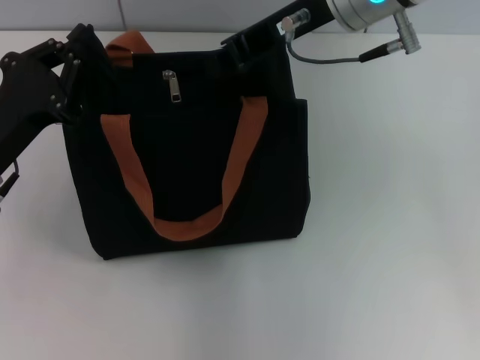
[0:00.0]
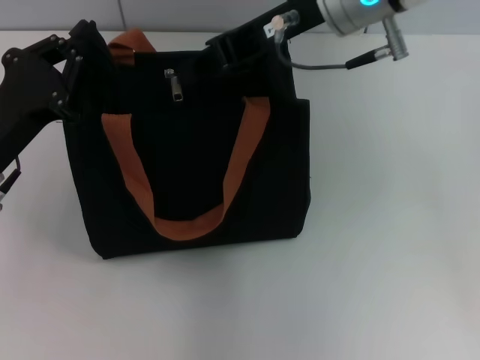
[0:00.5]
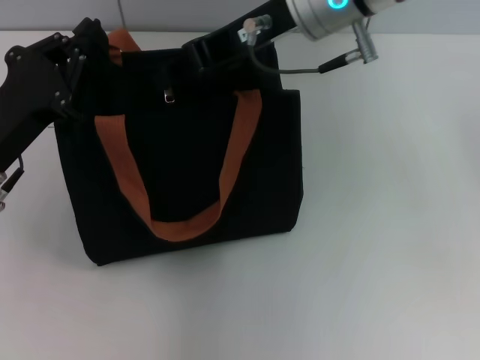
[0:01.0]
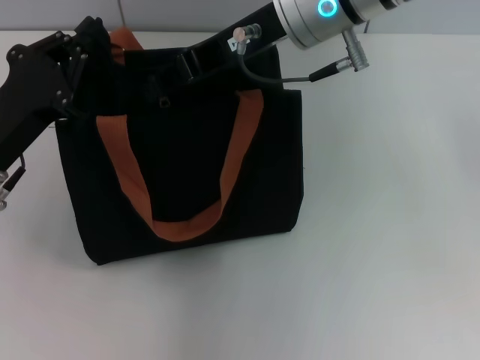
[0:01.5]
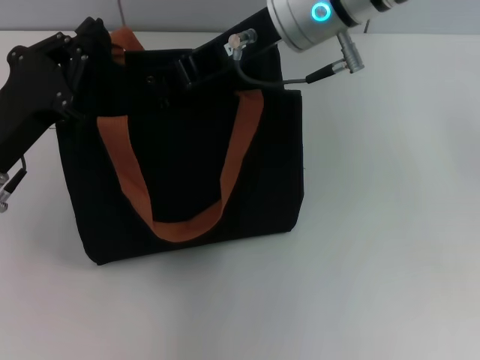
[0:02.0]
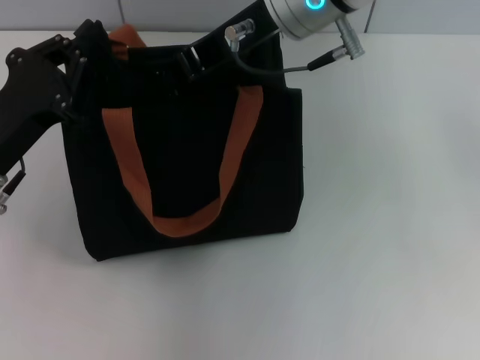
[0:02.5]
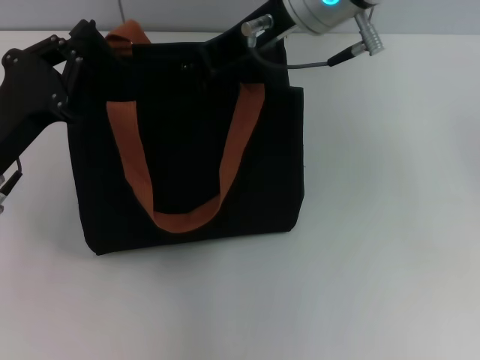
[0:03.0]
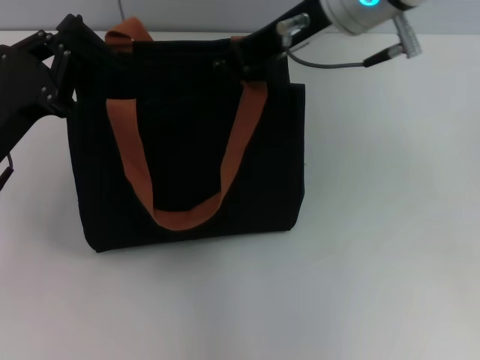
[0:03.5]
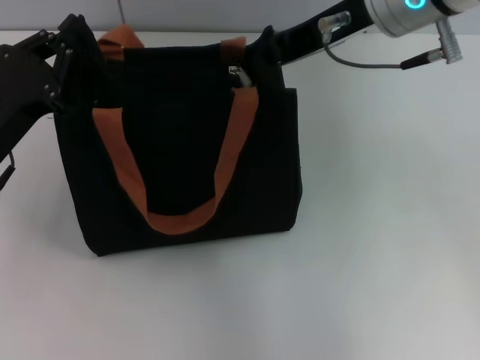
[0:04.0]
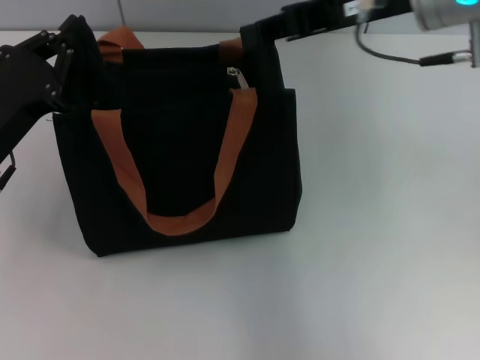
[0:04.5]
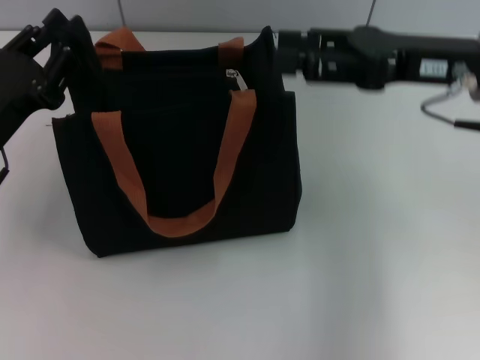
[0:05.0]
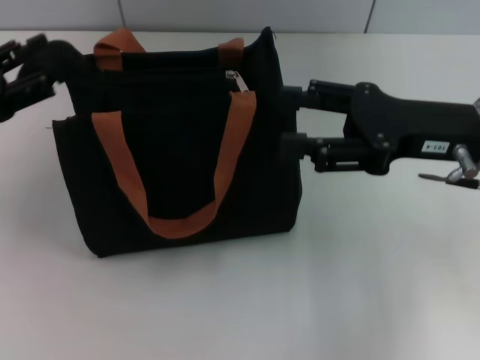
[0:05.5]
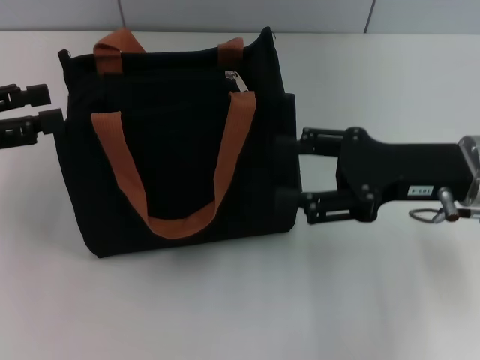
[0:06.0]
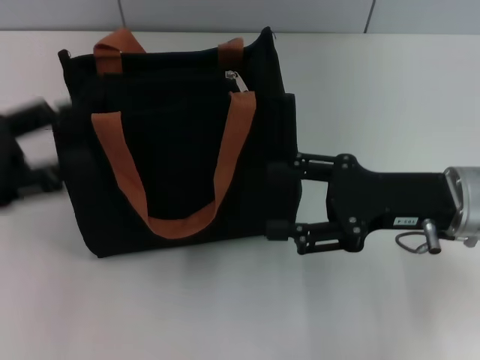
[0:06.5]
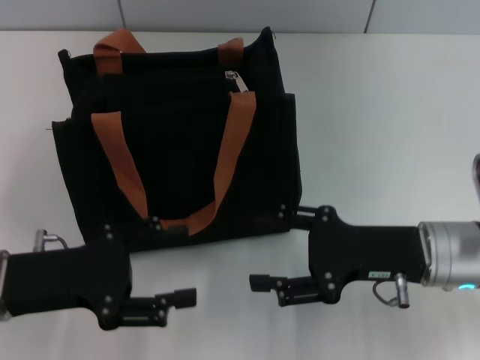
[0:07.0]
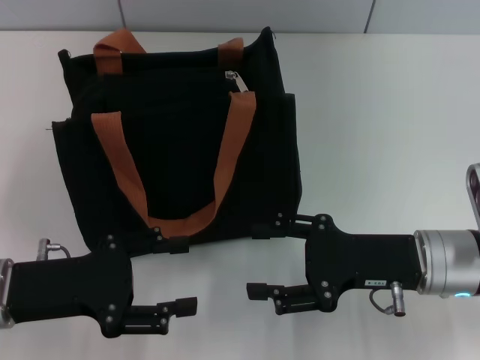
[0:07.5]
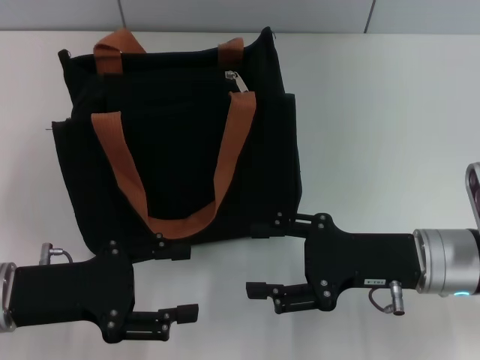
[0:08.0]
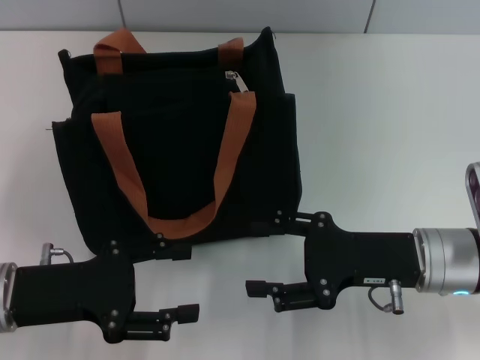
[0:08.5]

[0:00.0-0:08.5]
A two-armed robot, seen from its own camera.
Step, 0:00.0 to 0:04.0: Pull up the zipper with your right hand.
Step, 0:05.0 to 0:06.0: Grab the zipper with your left hand.
0:00.0 to 0:02.0: The grippers make only small movements.
0:02.0 to 0:04.0: The right gripper is displaced to the right by some 5 cm.
0:04.0 to 0:06.5: The right gripper moves downward, to the right and backward, approximately 20 cm, and opens its fingers, while the left gripper shifts roughly 10 cm to the left and upward, and opens its fingers.
0:06.5 to 0:08.5: The left gripper heads downward and to the right, covering about 10 cm; the right gripper ends up about 5 cm from where it was.

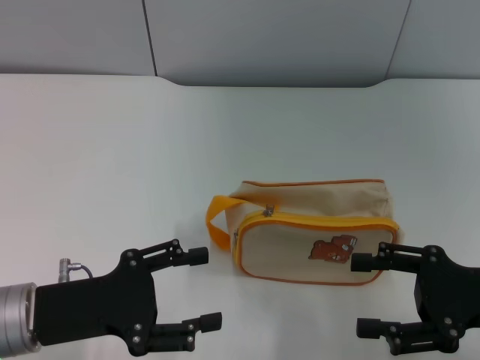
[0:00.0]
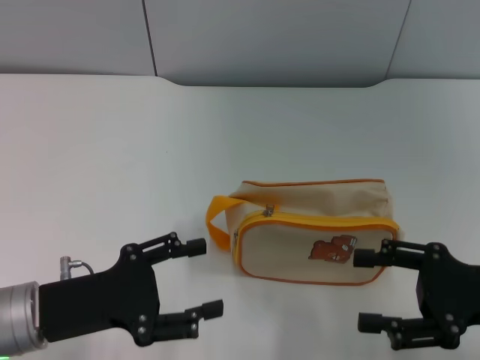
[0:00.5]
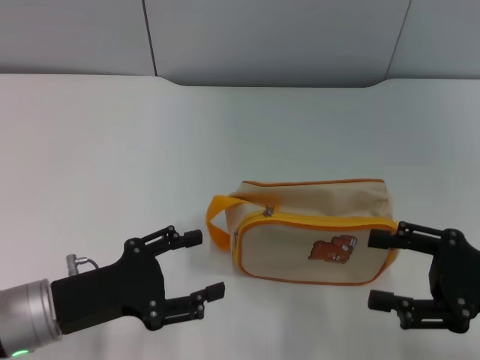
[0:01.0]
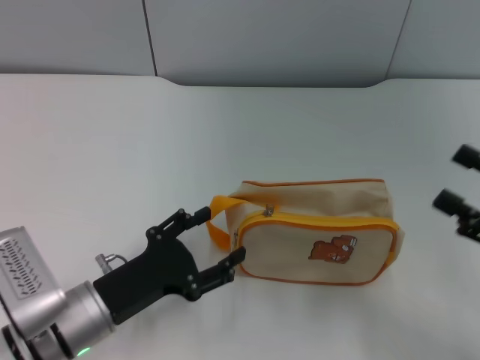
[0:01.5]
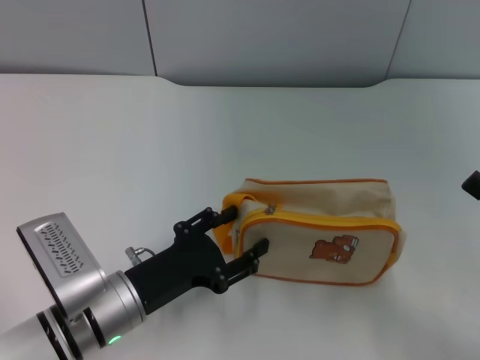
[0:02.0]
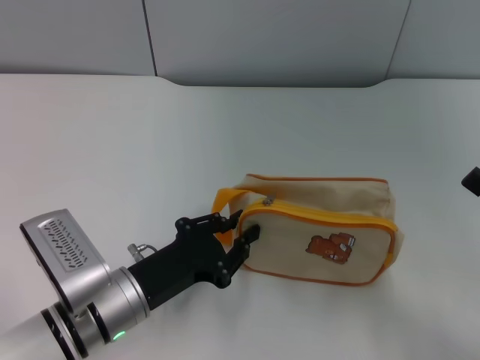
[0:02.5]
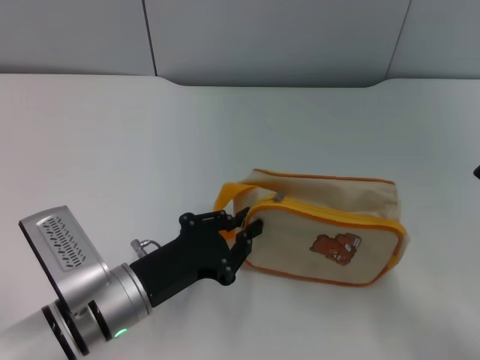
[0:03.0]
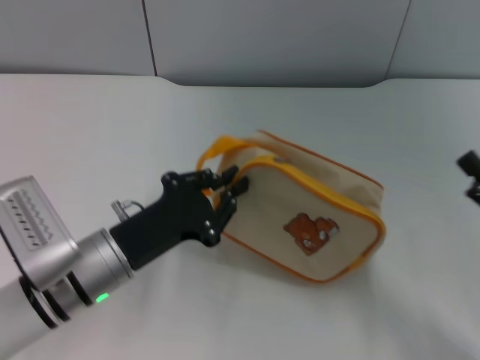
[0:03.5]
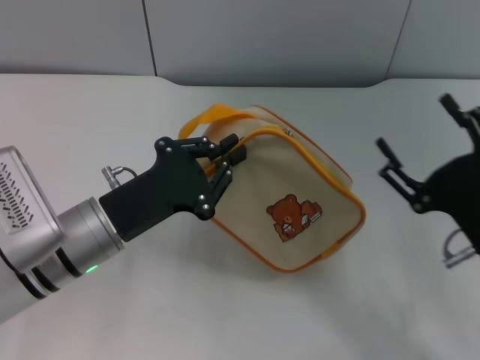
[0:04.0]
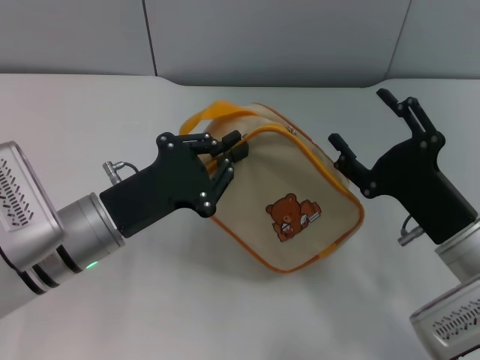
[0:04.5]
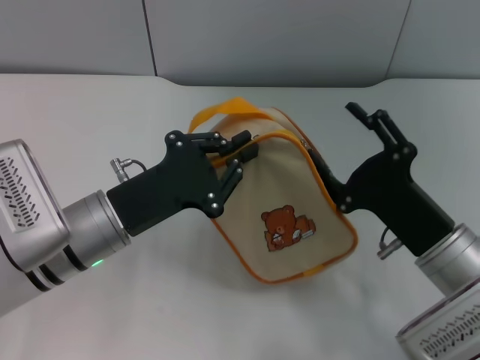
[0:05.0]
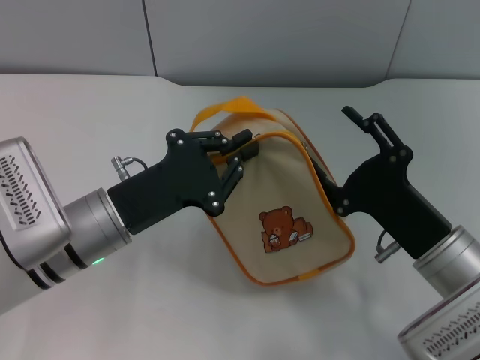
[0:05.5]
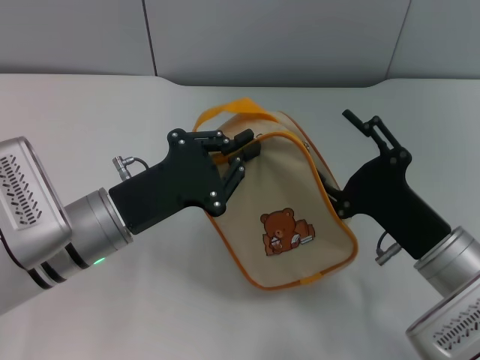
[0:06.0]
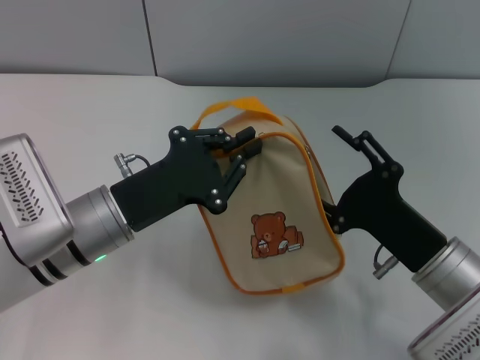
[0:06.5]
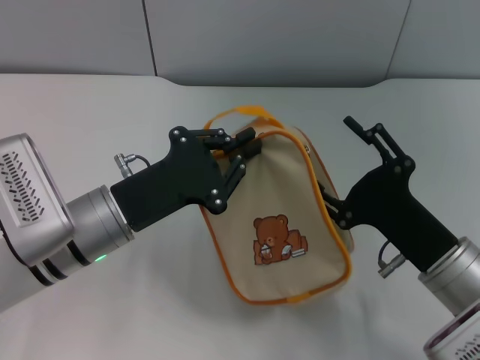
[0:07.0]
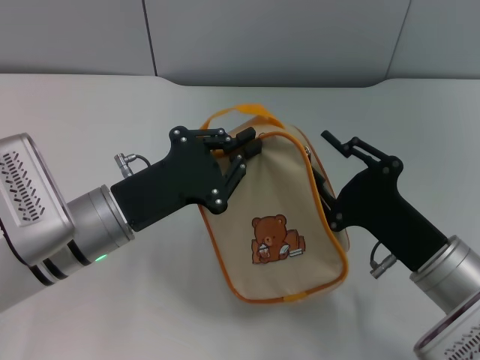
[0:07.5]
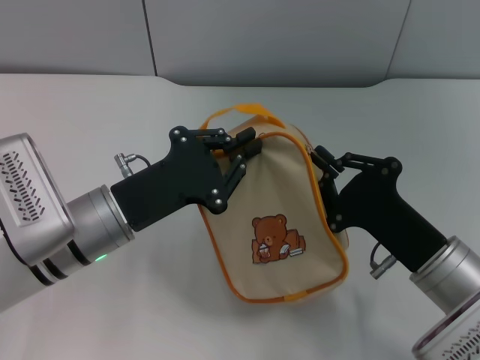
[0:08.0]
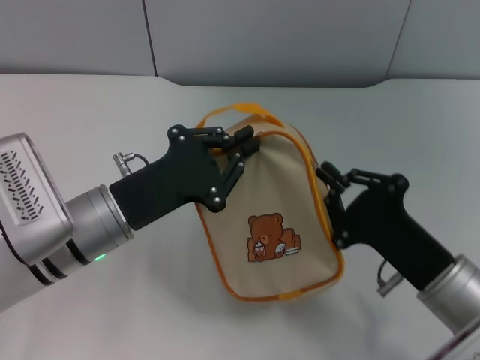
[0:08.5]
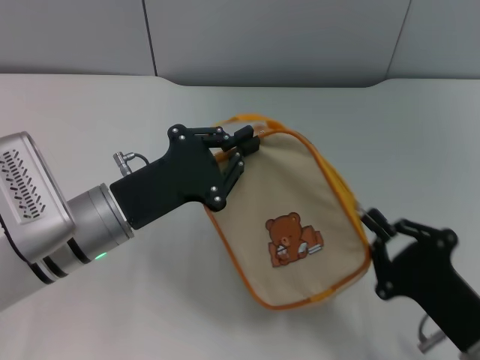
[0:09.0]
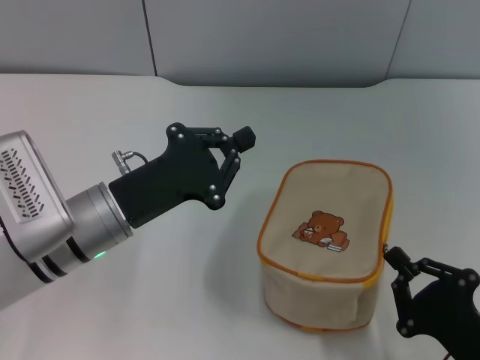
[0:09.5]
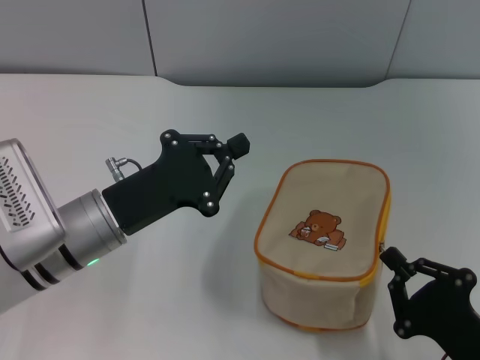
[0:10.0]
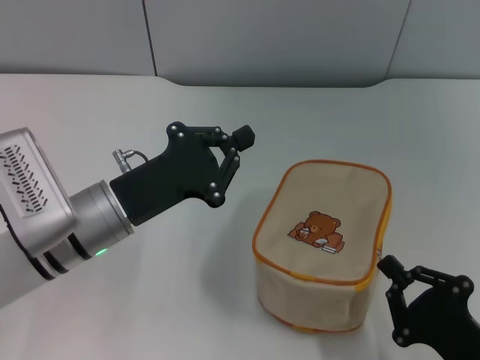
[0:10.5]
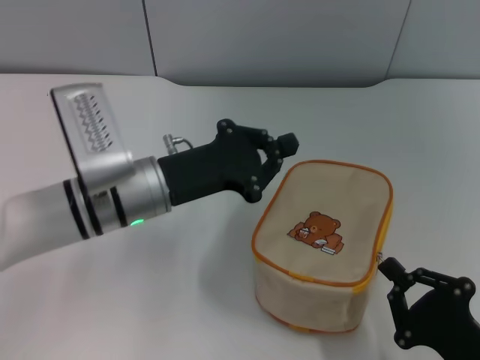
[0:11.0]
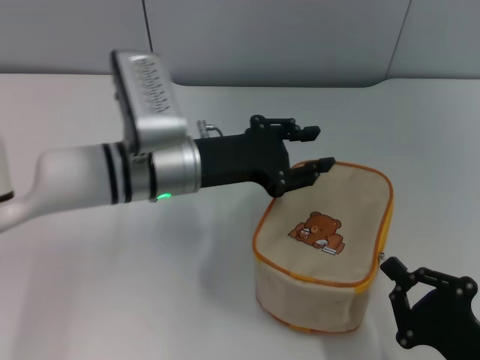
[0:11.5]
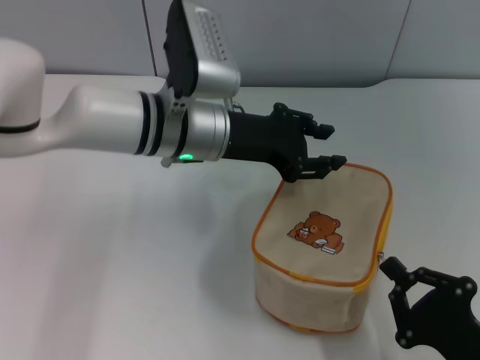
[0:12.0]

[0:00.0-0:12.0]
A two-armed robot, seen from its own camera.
Step, 0:00.0 to 0:04.0: Pick up the bag with left gripper.
0:00.0 to 0:02.0: The right gripper moves to the right, approximately 5 cm, while the left gripper is displaced to the right and downward by some 10 cm.
0:02.0 to 0:04.0: The left gripper is displaced upward by about 5 cm, and closes up; the right gripper moves to the left, about 10 cm.
0:04.0 to 0:06.0: The right gripper ends up about 5 cm from where it was.
0:06.0 to 0:08.0: The right gripper closes.
0:08.0 to 0:10.0: The right gripper heads backward, covering about 10 cm.
0:10.0 to 0:12.0: The left gripper moves forward, to the right and upward, roughly 15 cm, and opens.

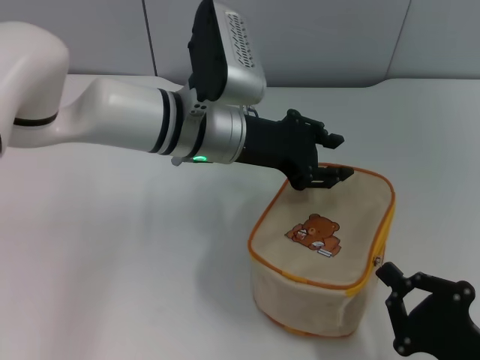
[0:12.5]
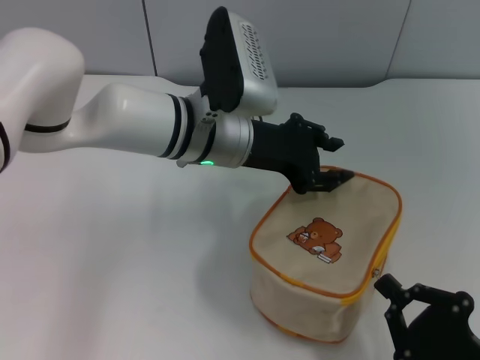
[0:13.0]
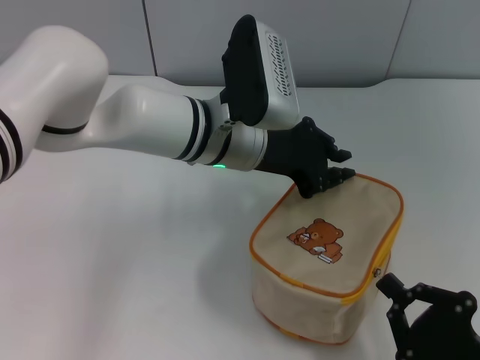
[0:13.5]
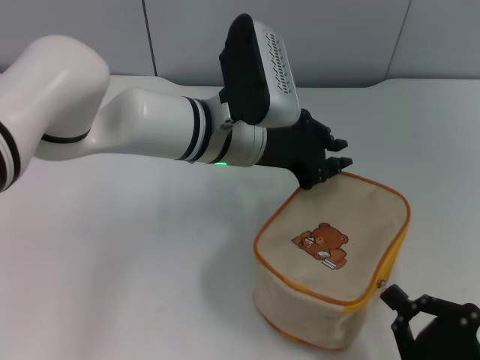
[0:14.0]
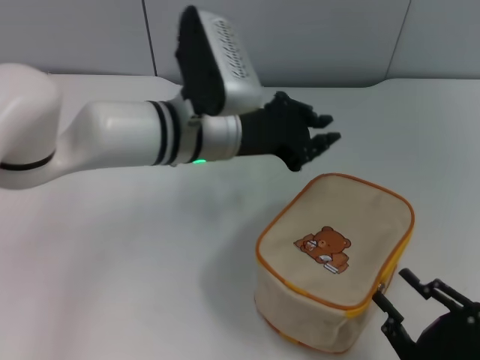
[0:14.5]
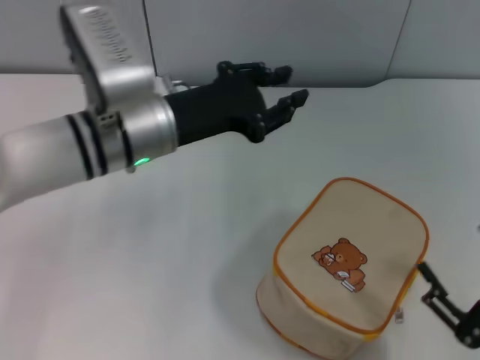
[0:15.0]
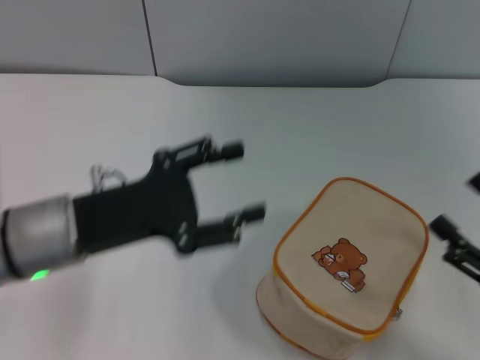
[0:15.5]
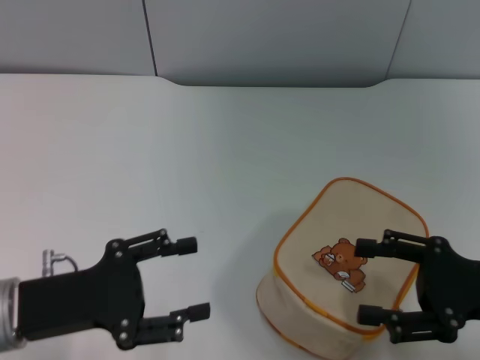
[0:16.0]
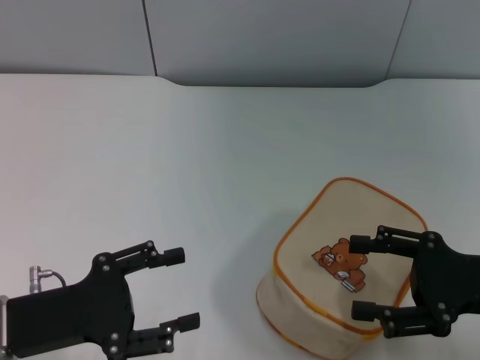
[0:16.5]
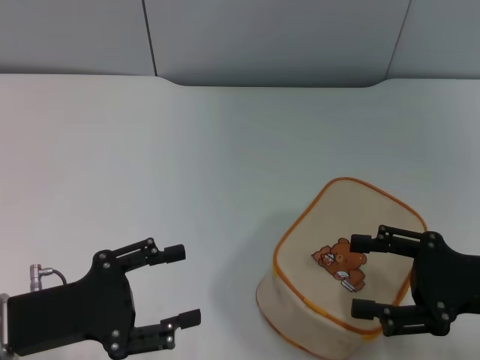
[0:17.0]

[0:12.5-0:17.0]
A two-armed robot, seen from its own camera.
Step, 0:12.5 to 0:14.5: Unzip the zipper of bag with right gripper.
0:14.5 to 0:17.0: The left gripper is displaced to the left and backward by roughly 25 cm, and opens up, while the right gripper goes approximately 15 cm forward and upward, and opens.
